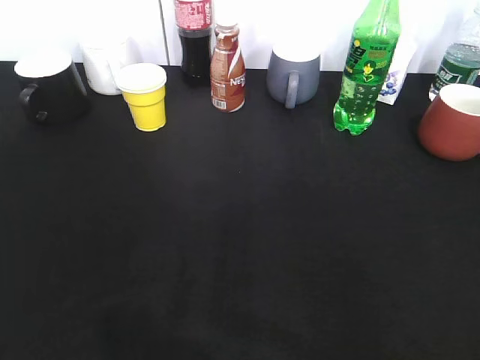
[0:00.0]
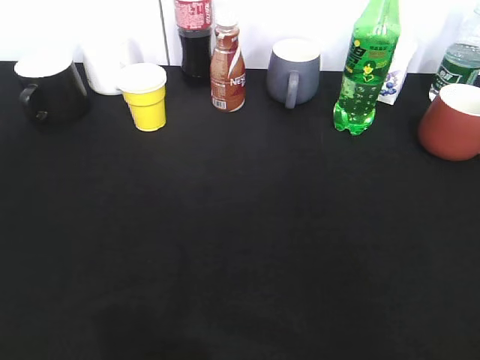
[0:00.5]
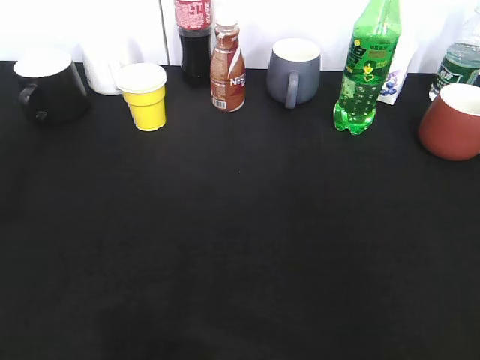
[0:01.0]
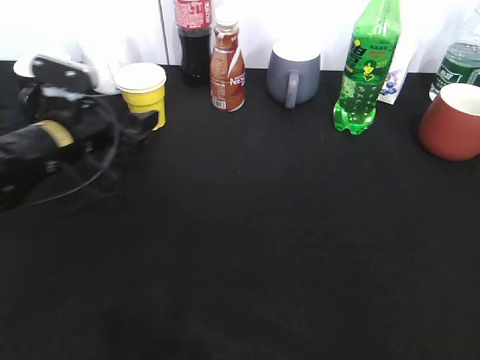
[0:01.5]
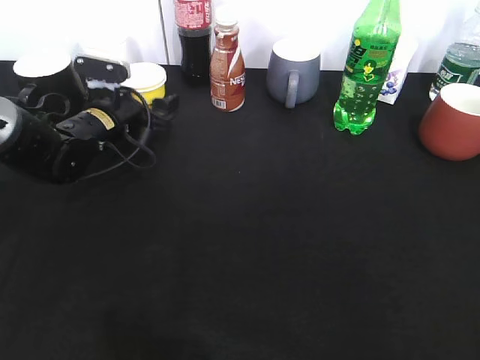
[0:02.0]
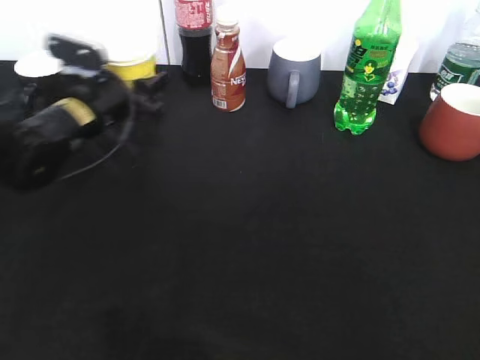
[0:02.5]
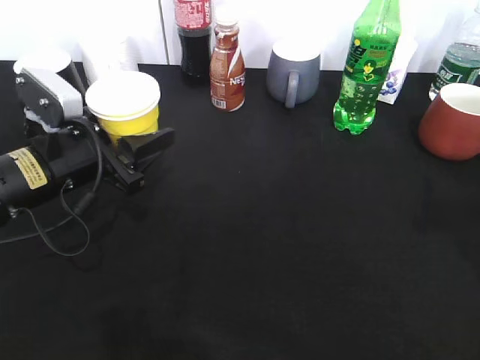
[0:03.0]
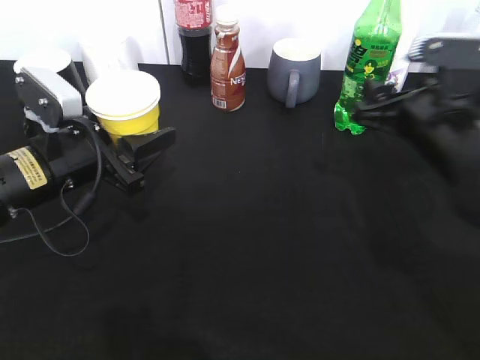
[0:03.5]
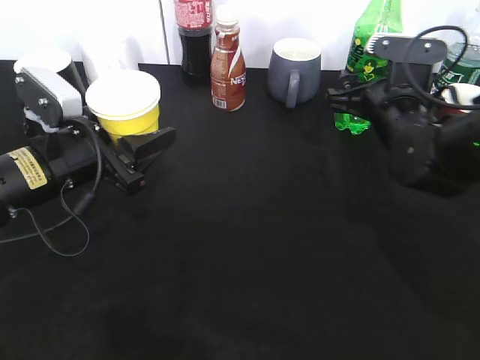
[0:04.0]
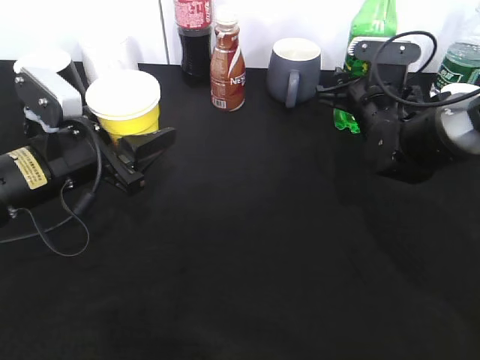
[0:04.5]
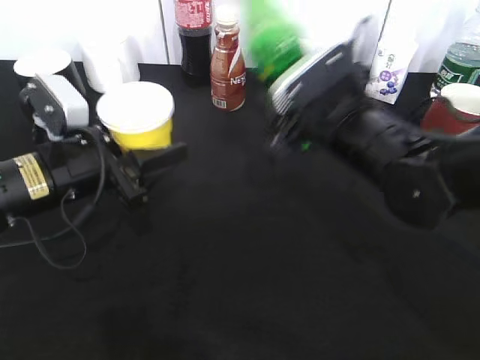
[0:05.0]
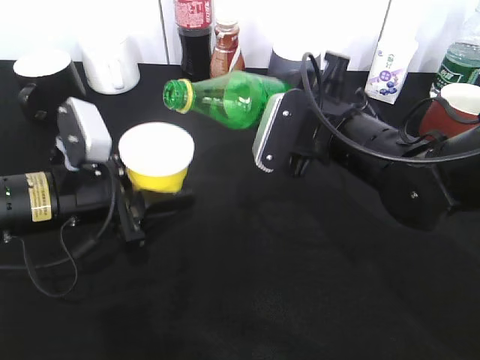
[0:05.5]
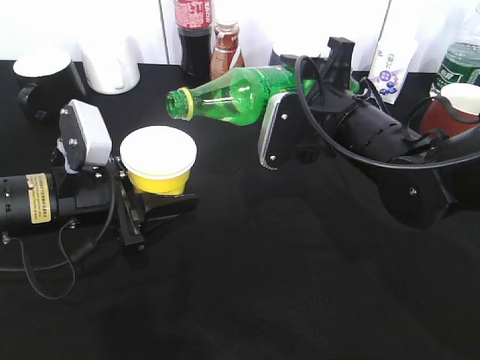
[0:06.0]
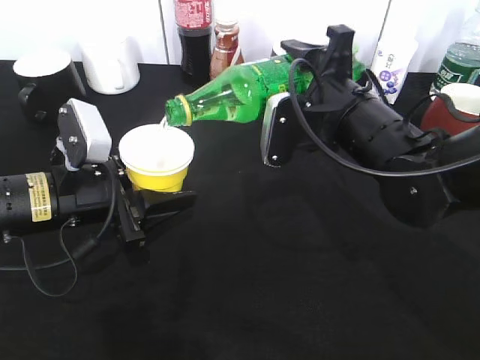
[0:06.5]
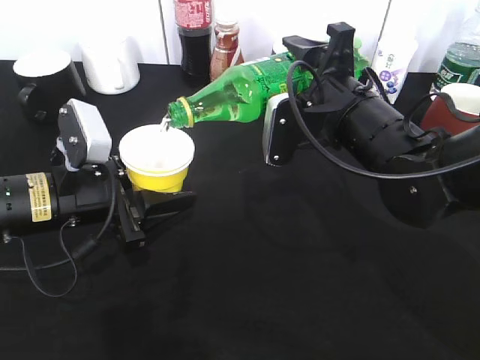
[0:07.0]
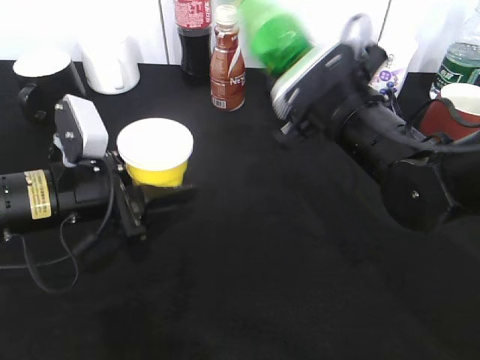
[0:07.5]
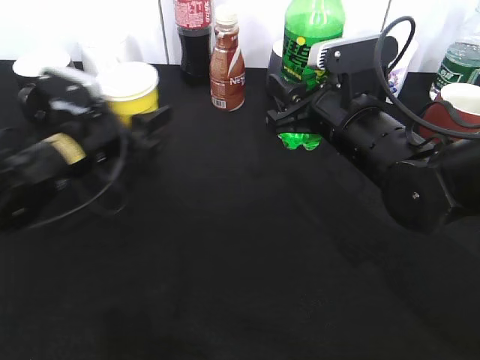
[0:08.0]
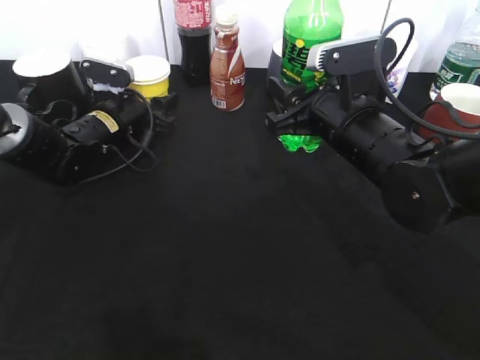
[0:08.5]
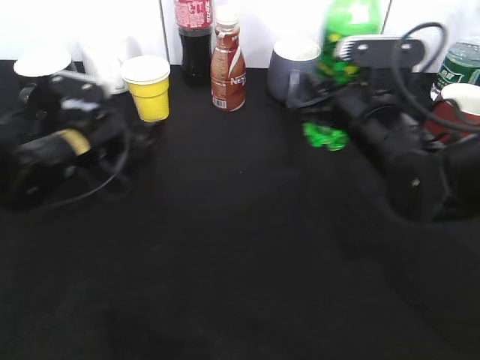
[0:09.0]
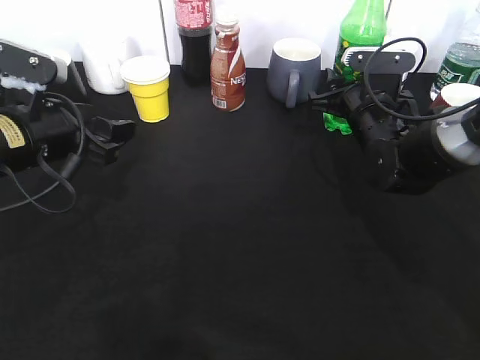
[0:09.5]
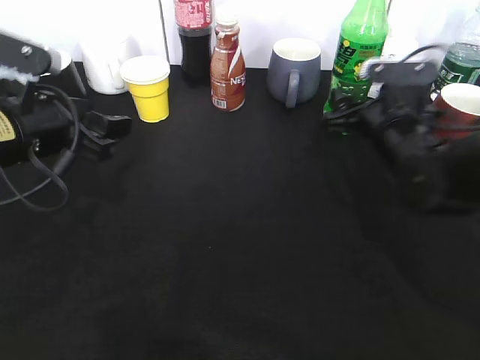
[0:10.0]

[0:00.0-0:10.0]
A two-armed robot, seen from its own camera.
Step, 0:00.0 to 0:02.0: Grasp the yellow paper cup with left gripper.
Step, 0:02.5 to 0:03.0: Lift the yellow paper cup with left gripper.
Step, 0:03.5 to 0:04.5: Grasp the bottle with sprite with right gripper.
Step, 0:05.0 to 0:07.0: Pour the sprite from bottle to cup with right gripper.
0:00.0 to 0:02.0: The left gripper travels forward and downward by some 50 cm, and closes, then reopens.
0:02.0 to 0:04.0: The right gripper is displaced forward by some 35 cm, while the left gripper is displaced backward by about 15 cm, and closes.
0:04.0 to 0:06.0: The right gripper heads to the left and backward, covering roughly 10 cm, and closes up.
0:06.0 to 0:08.0: The left gripper is displaced forward by about 10 cm.
0:08.0 to 0:10.0: The left gripper is displaced upward and backward by some 10 cm, and opens its fingers, while the right gripper is displaced to the right by about 5 cm, and opens its fingers.

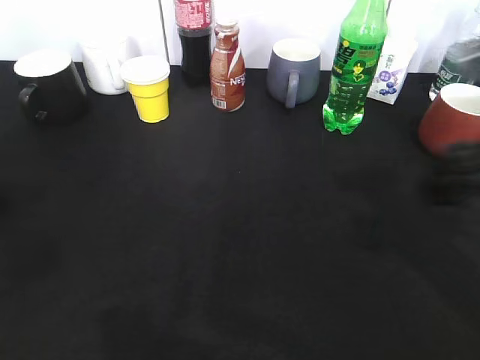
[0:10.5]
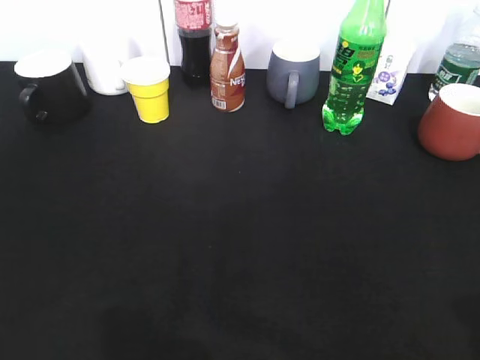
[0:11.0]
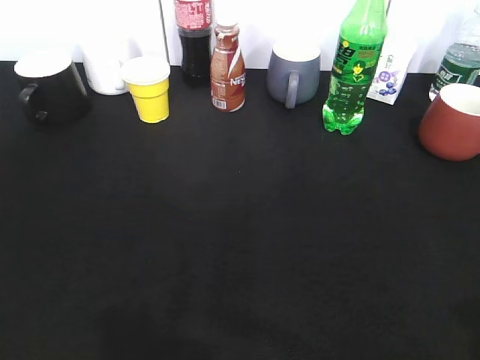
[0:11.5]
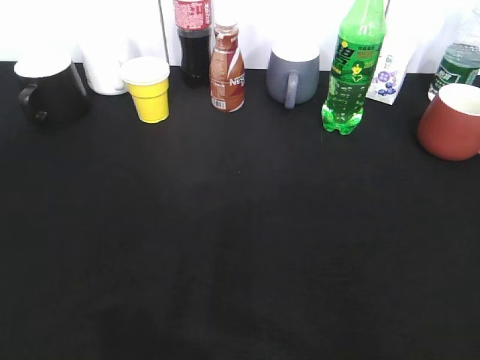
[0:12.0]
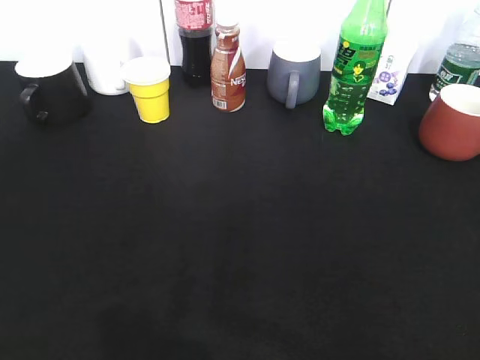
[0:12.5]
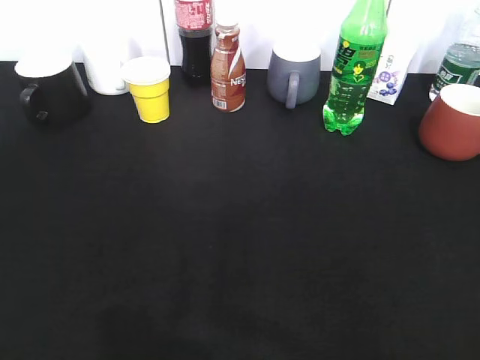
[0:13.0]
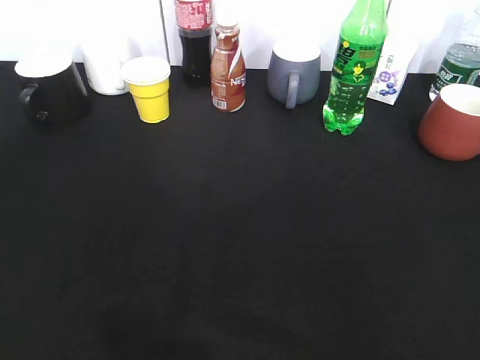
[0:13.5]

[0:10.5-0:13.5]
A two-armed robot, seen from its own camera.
0:10.5 to 0:12.0: The right gripper moves backward and to the right, some 20 cm. Meanwhile the left gripper heads backward and to the left, covering approximately 15 cm.
0:12.0 to 0:13.5: There are only small adjustments of the grippers.

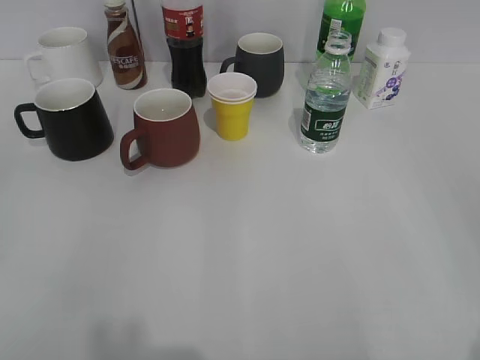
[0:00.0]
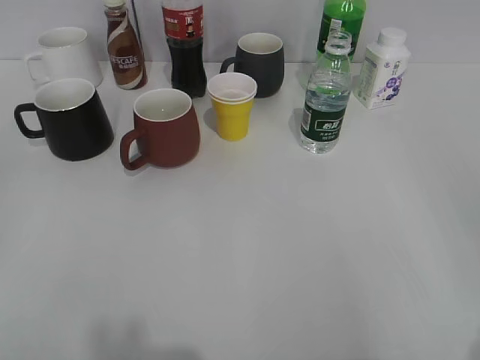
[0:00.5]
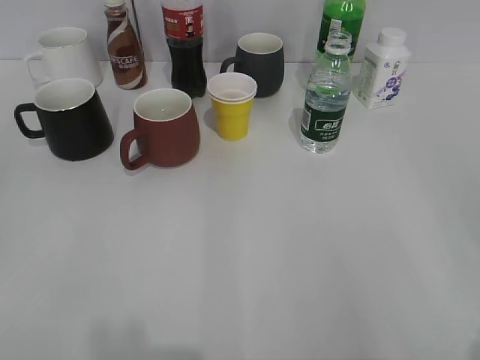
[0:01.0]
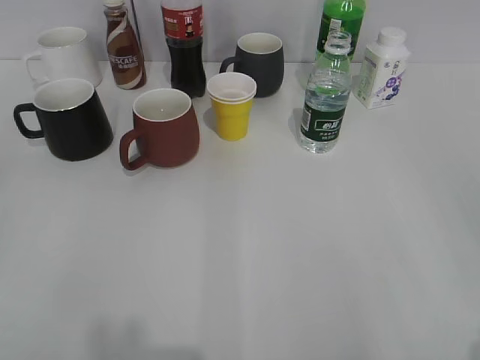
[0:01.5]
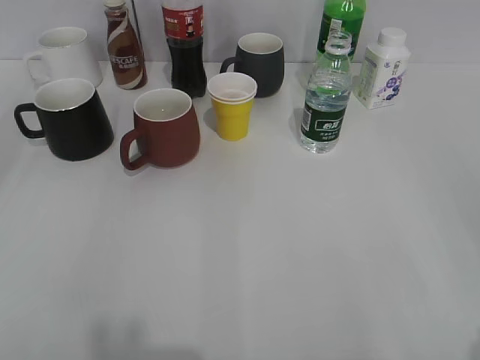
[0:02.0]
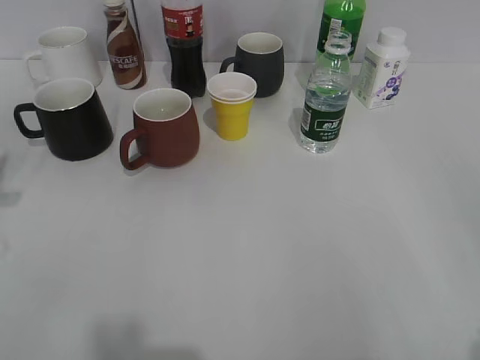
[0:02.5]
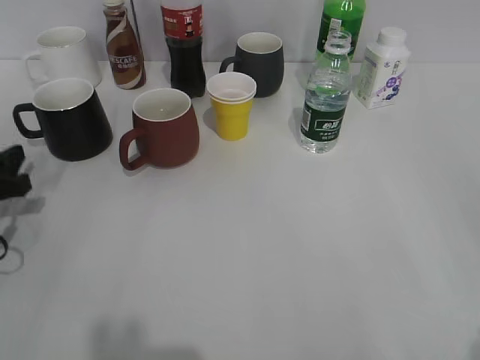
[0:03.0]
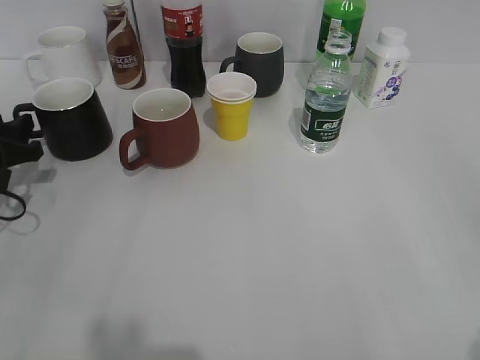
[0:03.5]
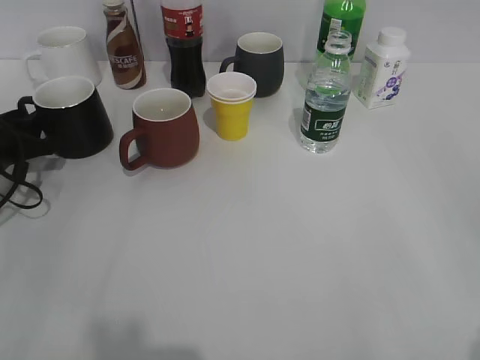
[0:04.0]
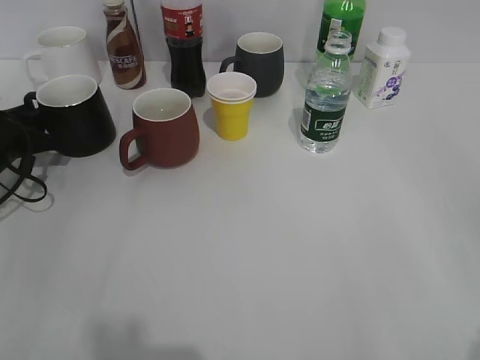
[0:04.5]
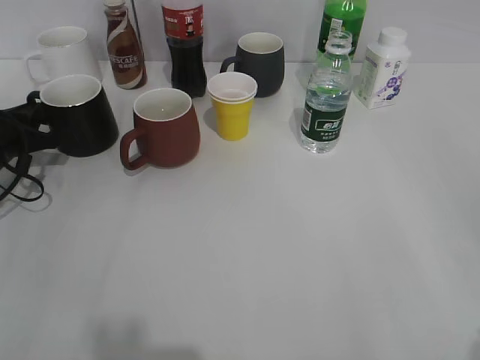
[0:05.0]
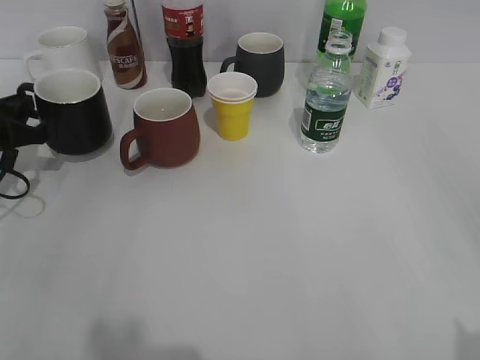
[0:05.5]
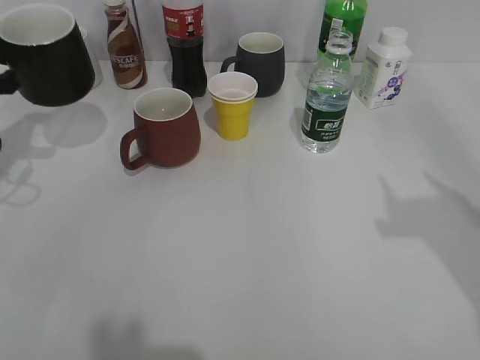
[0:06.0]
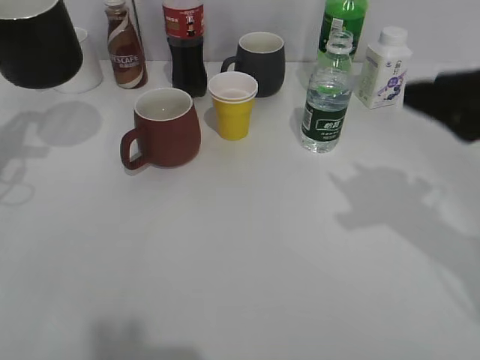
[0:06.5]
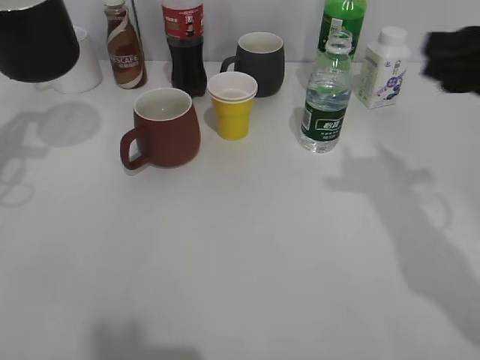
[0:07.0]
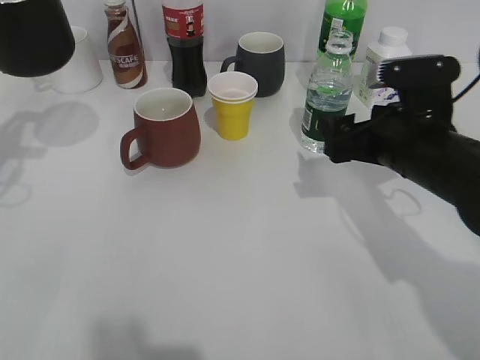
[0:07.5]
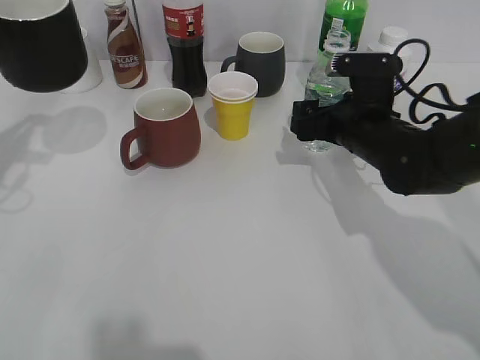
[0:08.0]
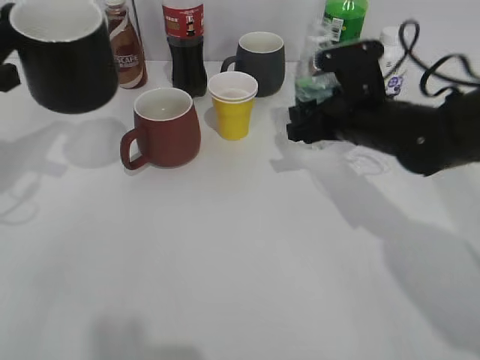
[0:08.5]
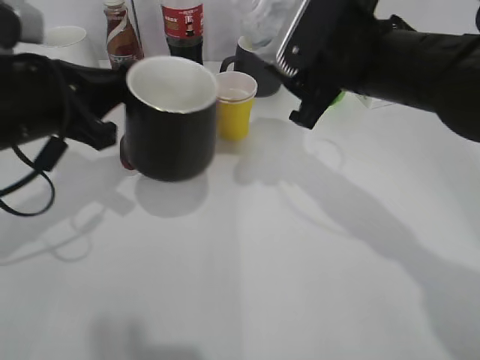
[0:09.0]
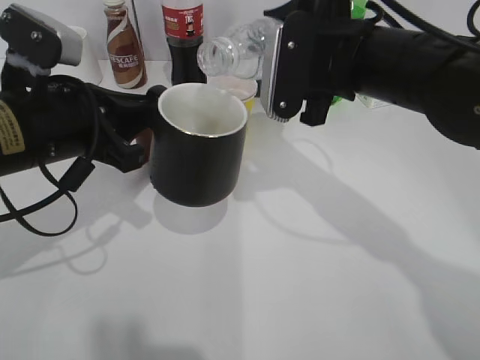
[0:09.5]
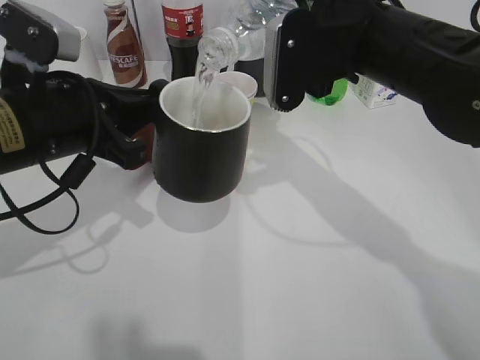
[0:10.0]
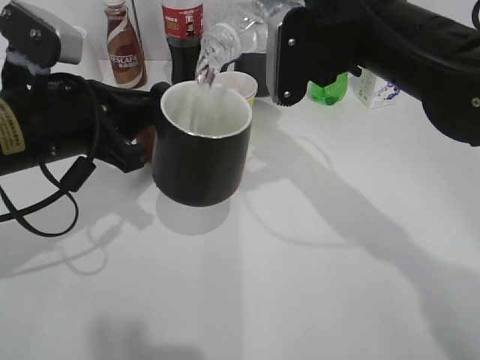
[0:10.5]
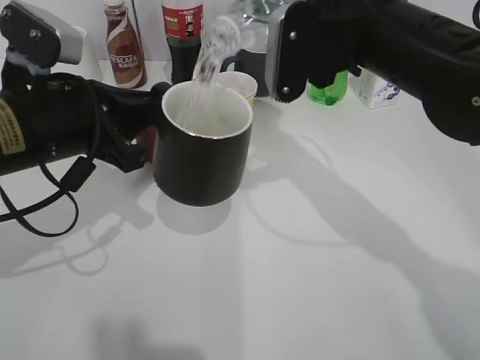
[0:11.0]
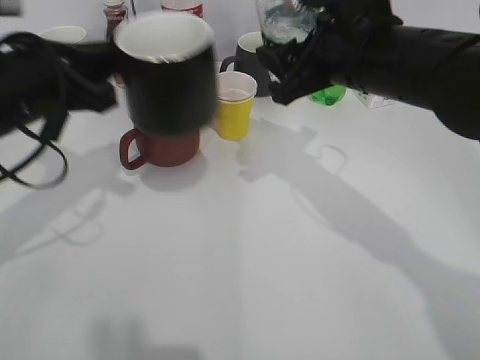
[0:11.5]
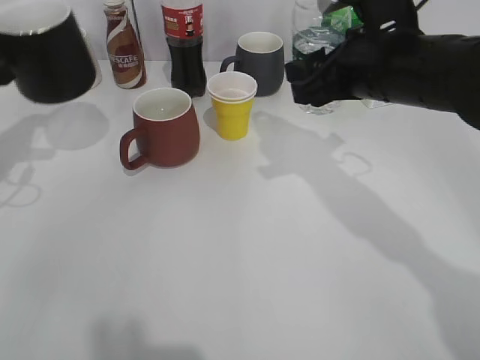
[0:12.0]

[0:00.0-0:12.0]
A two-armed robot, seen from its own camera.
Step, 0:02.0 to 0:05.0: Grasp the black cup with left gripper.
Step, 0:05.5 to 0:06.0: Lift the black cup with left gripper.
Step, 0:06.5 to 0:08.0: Grasp the bottle with water with right gripper.
Step, 0:08.5 to 0:11.0: Pour the water from bottle to cup with right gripper.
0:02.0 to 0:04.0: The left gripper is displaced forward and downward by about 40 cm.
0:04.0 to 0:06.0: The left gripper travels upward by some 10 cm, and closes its fingers; the right gripper is displaced forward by approximately 15 cm.
0:06.0 to 0:08.0: The left gripper moves upward, some 5 cm, while the right gripper goes some 30 cm forward, downward and to the left, and opens.
0:08.0 to 0:10.0: The left gripper shifts approximately 15 cm to the right; the right gripper is displaced upward by approximately 15 cm, and closes up.
0:10.0 to 0:12.0: The left gripper is displaced to the left and forward by about 15 cm.
